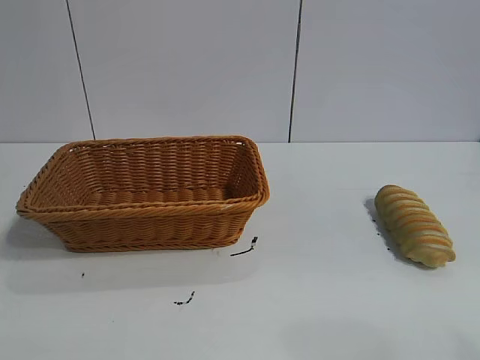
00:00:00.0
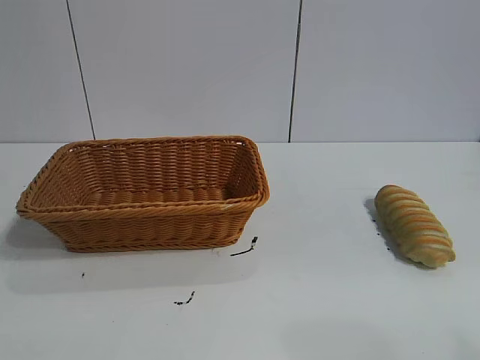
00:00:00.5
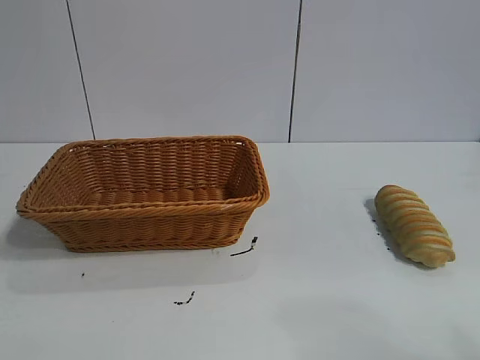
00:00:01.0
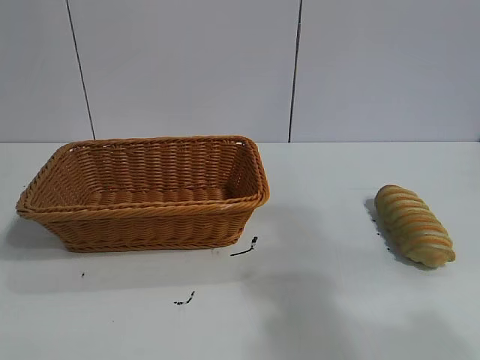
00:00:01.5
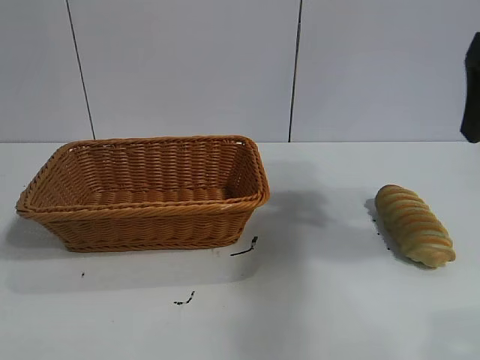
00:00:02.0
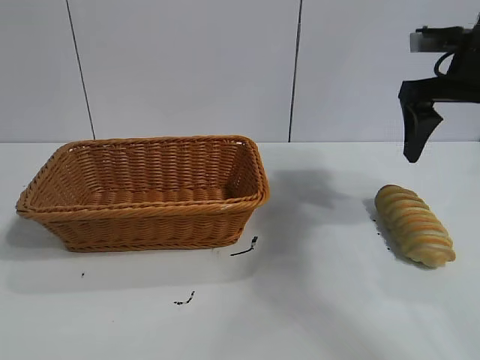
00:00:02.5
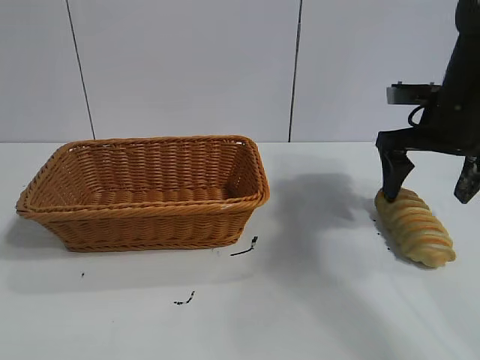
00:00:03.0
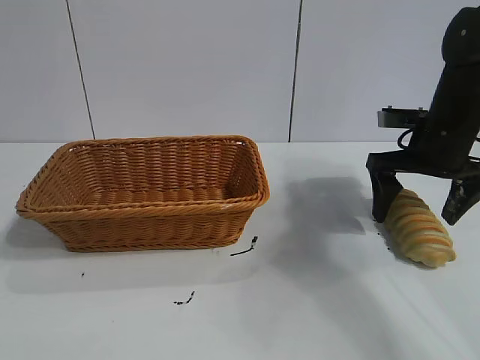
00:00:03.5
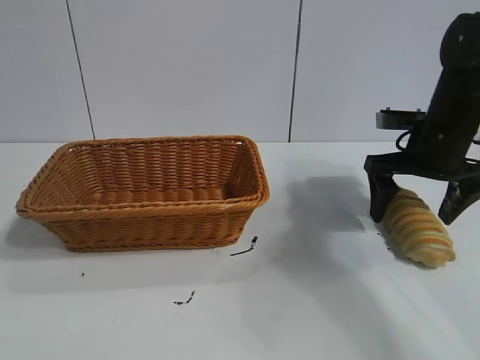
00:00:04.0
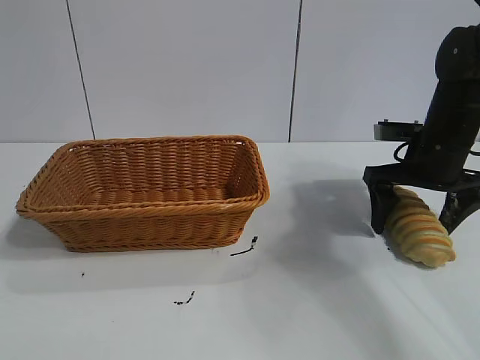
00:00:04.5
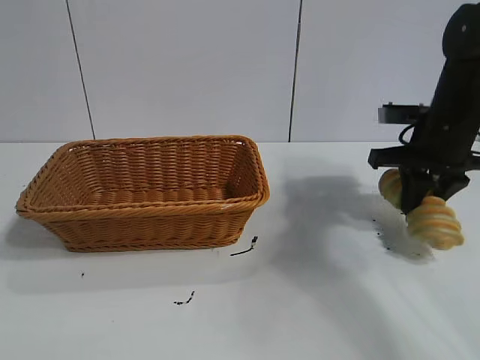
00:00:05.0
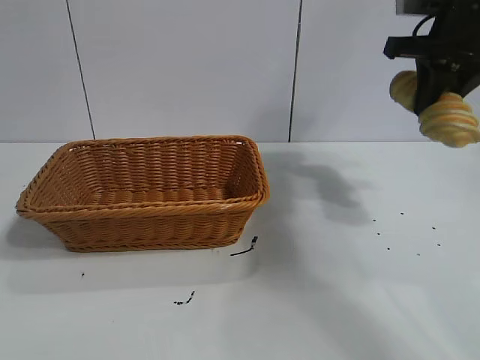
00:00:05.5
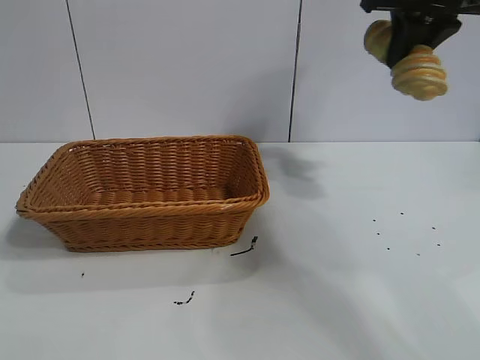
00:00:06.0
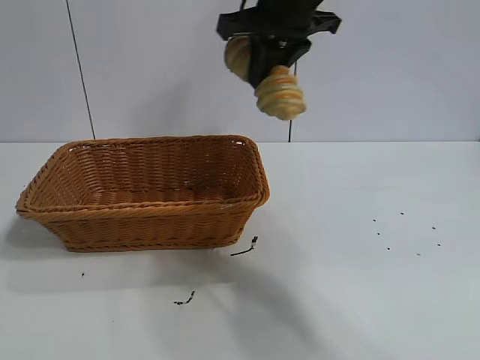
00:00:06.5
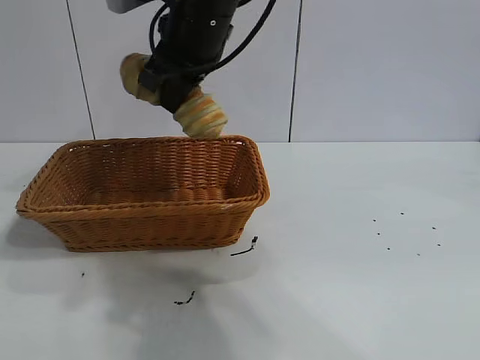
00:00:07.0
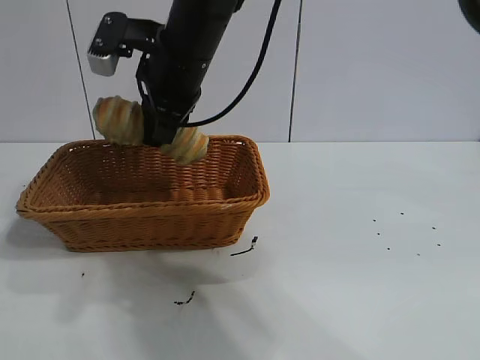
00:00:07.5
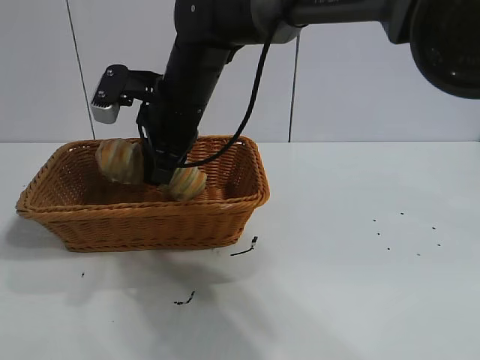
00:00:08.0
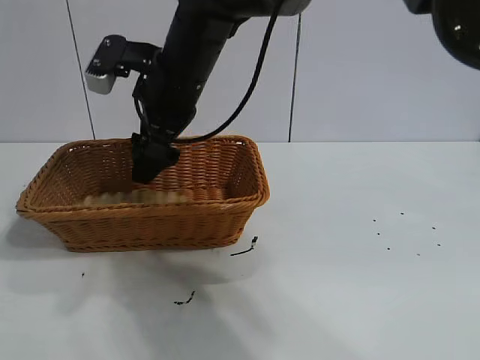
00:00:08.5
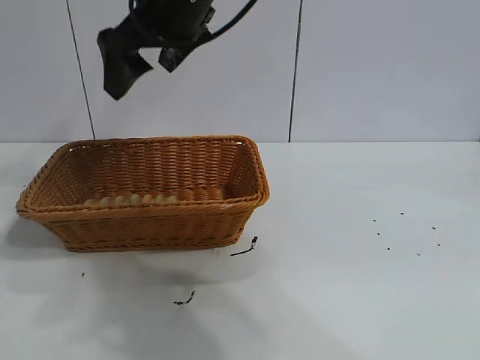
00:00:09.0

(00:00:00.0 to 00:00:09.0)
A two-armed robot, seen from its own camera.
Task of the whole recording: pick up the long bread and put it into the basket.
Step, 00:00:02.0 - 00:00:04.5: Grasp the long bread with right gripper.
Step, 00:00:05.0 - 00:00:08.5: Place the long bread in the basket with right gripper.
